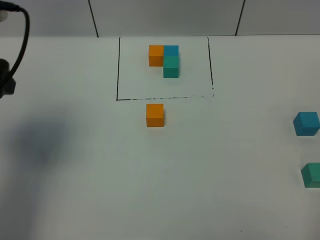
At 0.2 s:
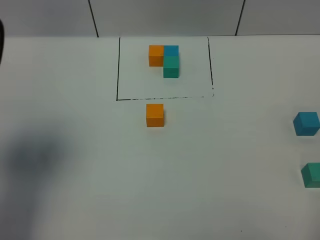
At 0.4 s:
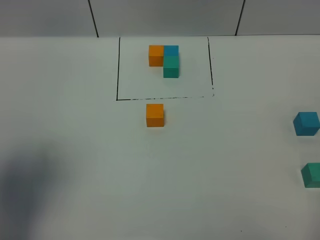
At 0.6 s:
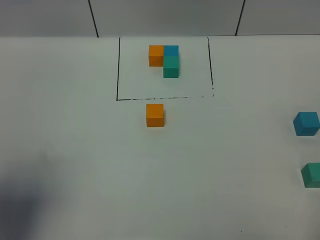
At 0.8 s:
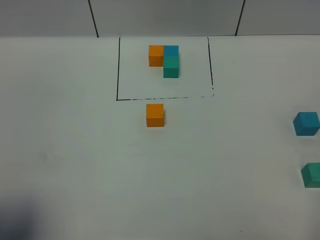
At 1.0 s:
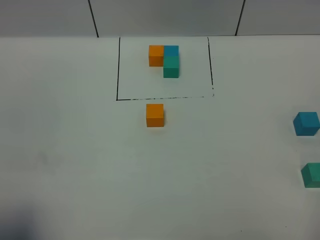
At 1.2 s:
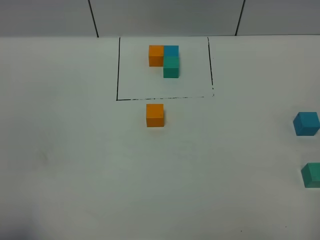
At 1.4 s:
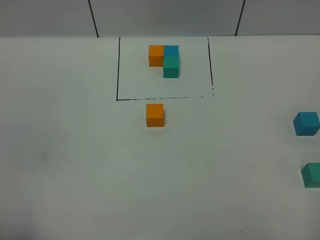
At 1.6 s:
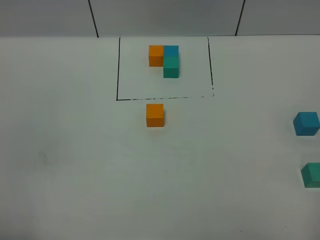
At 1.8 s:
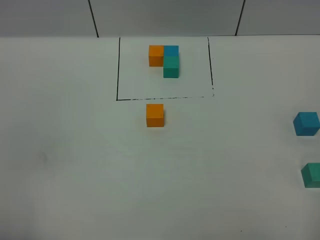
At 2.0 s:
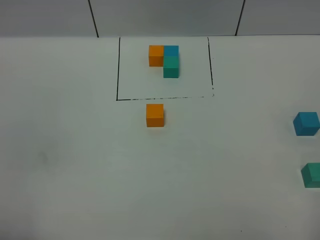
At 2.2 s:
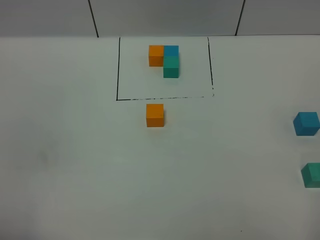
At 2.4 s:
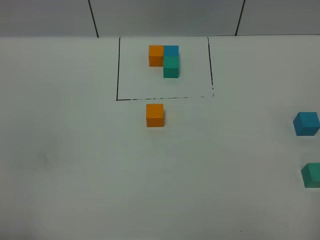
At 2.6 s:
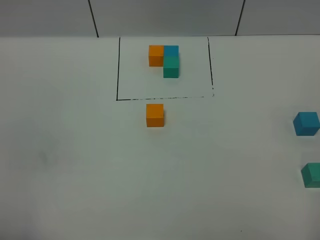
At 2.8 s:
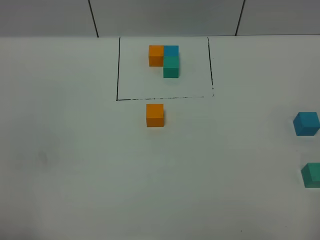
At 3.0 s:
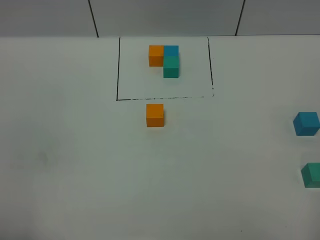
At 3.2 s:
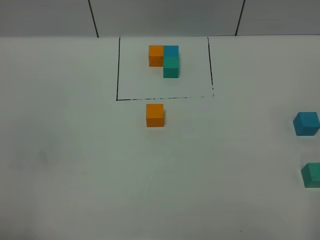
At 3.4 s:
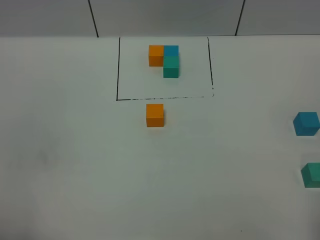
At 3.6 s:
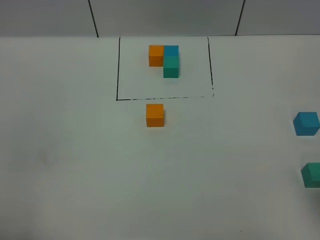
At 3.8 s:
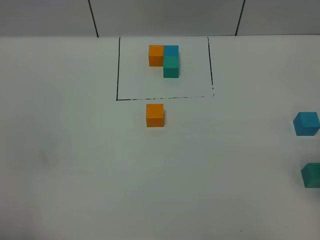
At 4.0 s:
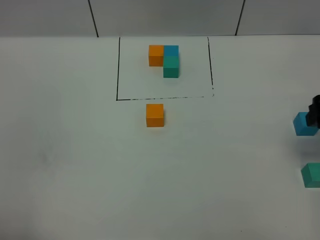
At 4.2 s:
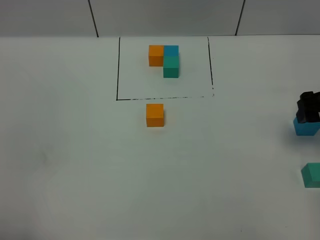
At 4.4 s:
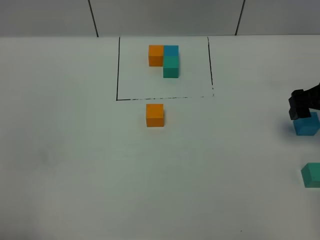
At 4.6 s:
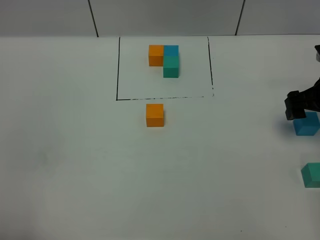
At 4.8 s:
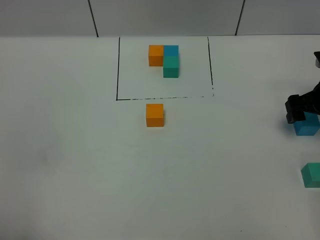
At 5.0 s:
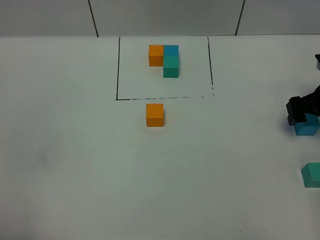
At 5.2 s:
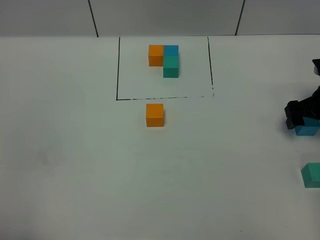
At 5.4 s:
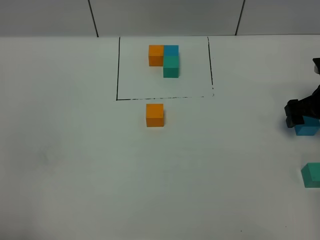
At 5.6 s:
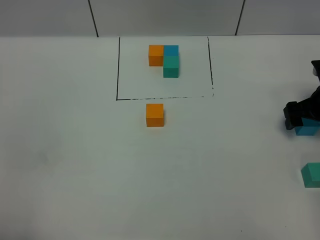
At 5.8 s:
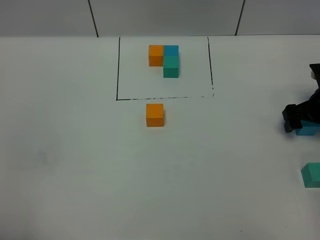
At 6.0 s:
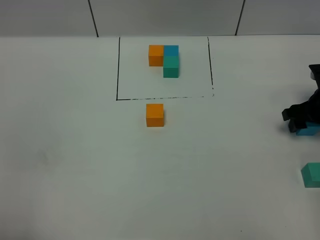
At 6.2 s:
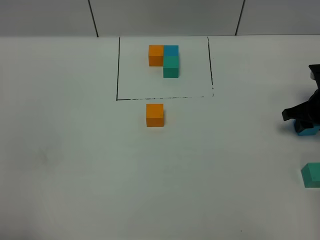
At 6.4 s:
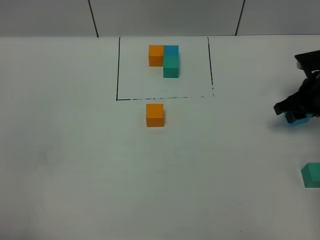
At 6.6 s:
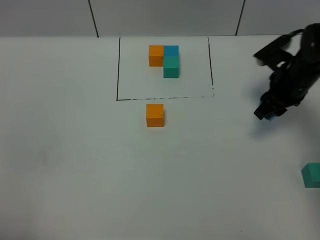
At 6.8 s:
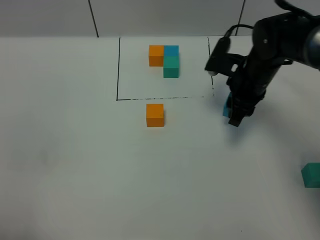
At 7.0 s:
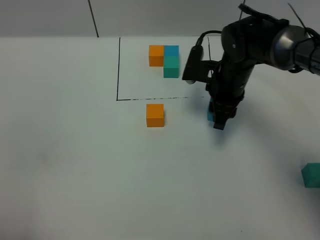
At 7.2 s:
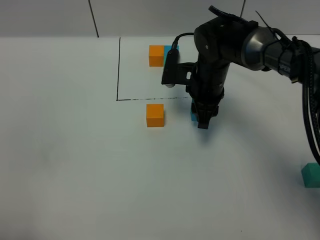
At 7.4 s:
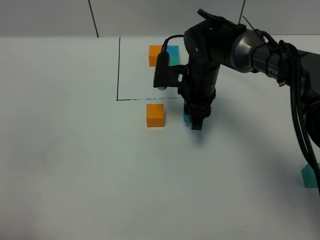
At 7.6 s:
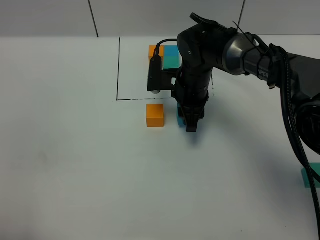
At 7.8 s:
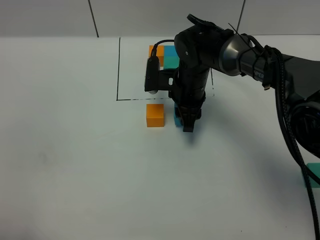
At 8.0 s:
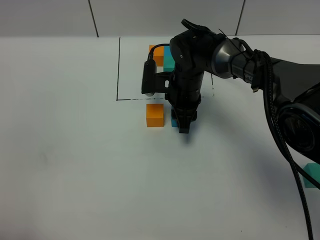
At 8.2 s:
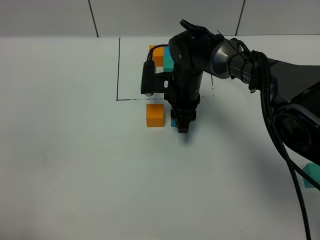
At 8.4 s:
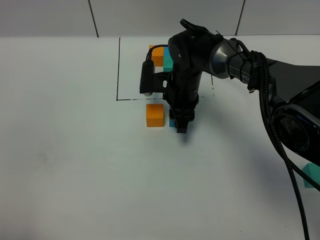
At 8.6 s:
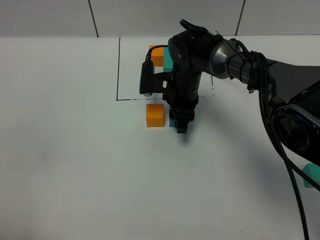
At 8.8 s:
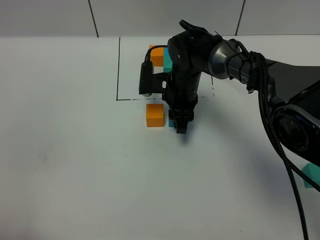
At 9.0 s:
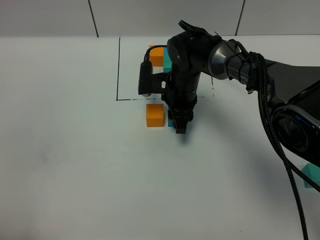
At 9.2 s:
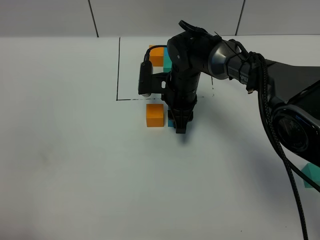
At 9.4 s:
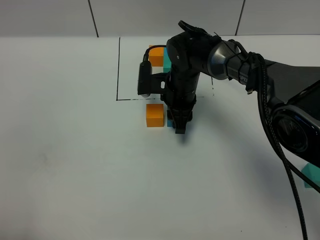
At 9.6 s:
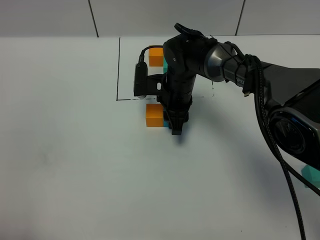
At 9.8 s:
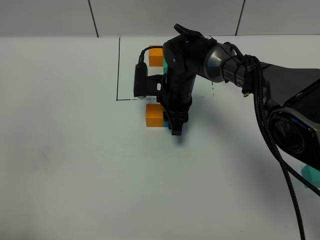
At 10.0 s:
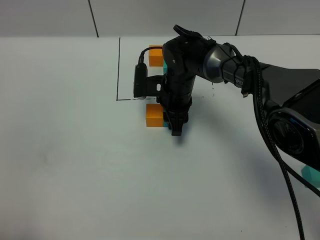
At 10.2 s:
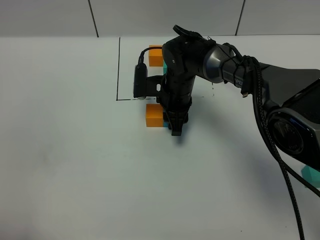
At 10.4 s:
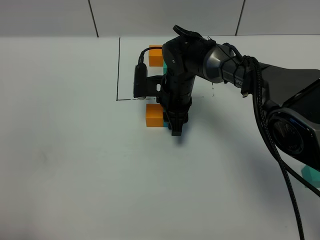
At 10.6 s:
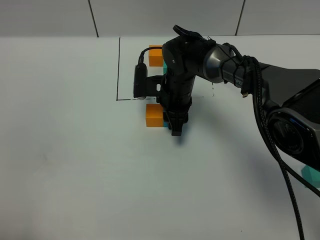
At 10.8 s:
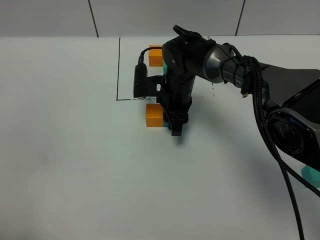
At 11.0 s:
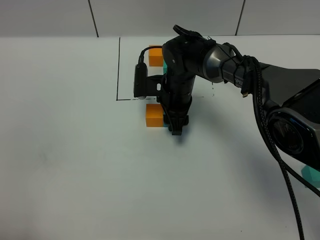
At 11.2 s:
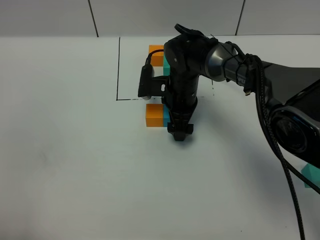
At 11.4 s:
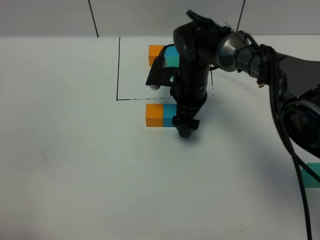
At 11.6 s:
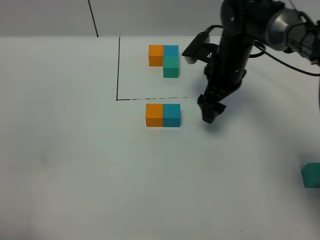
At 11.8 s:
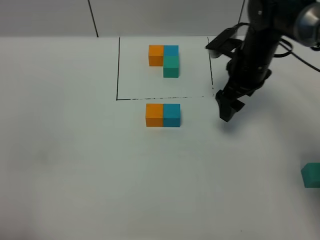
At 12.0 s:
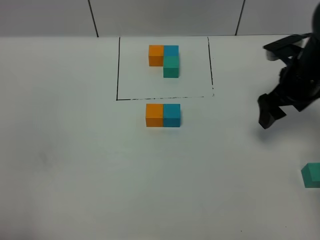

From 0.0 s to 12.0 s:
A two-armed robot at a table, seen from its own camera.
Task of the whole recording: According to the building block template in front, assemble the scattered blocks together.
Step, from 0.0 s to 11.2 s: Put the blue build block on the behind of the orange build block.
From 0.0 s to 1.6 s: The left gripper goes approximately 25 cm backward.
From 1.6 s to 3.0 s: Neither gripper changes place.
From 3.0 s to 4.4 s: The right gripper travels forward by about 35 cm.
From 4.4 s to 6.0 s: The right gripper is displaced downward by about 5 cm, and closes its fingers.
From 6.0 s to 7.6 s: The right gripper is displaced to the left by roughly 30 cm.
From 7.6 s to 9.0 s: There are only small adjustments of the grippers.
From 9.0 s to 10.4 s: Both grippers stay put.
From 10.4 s to 12.0 s: The right gripper heads to the right, covering roughly 25 cm, and opens.

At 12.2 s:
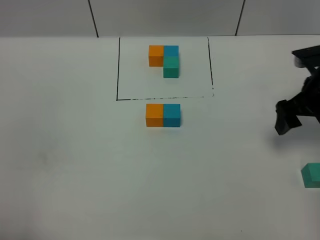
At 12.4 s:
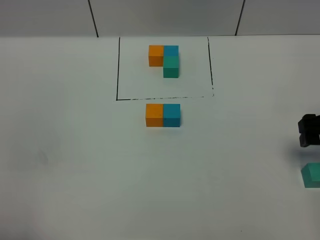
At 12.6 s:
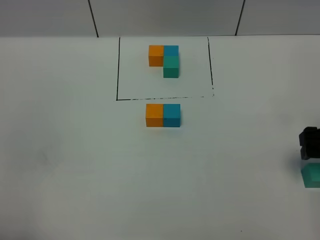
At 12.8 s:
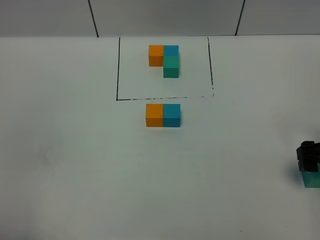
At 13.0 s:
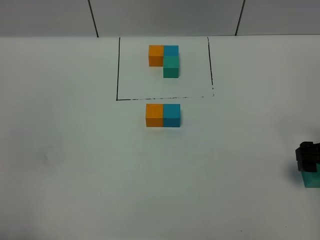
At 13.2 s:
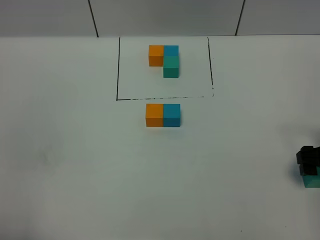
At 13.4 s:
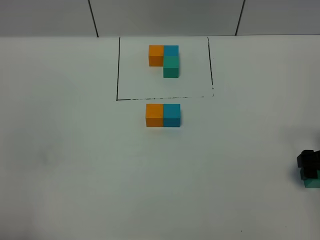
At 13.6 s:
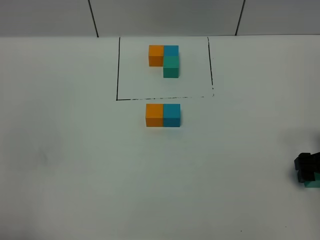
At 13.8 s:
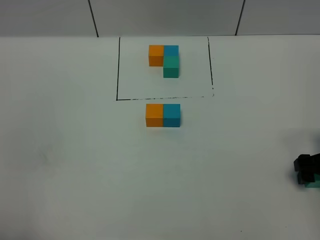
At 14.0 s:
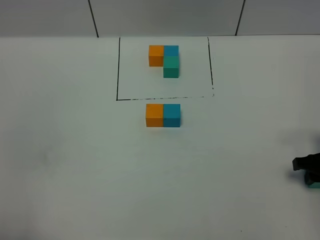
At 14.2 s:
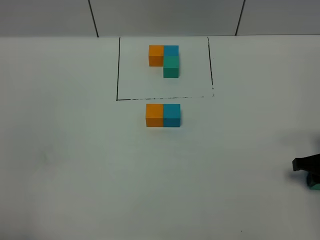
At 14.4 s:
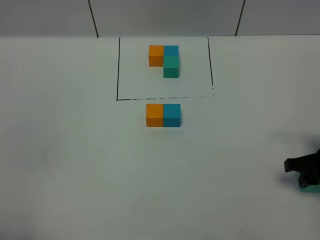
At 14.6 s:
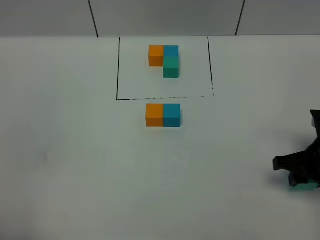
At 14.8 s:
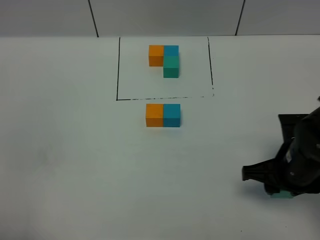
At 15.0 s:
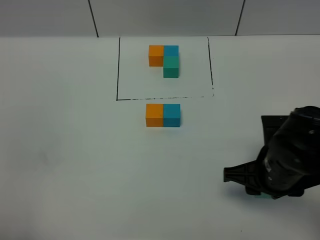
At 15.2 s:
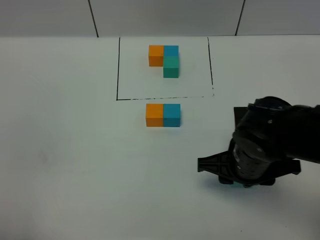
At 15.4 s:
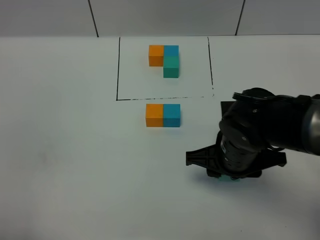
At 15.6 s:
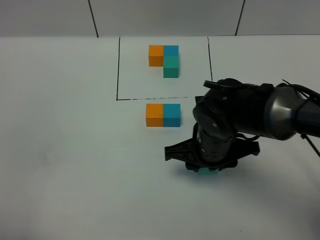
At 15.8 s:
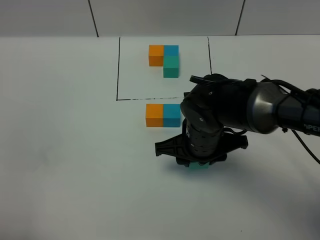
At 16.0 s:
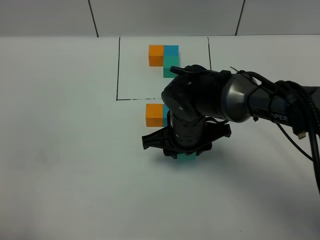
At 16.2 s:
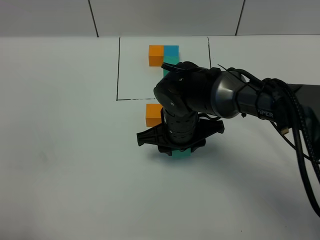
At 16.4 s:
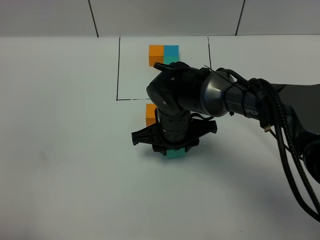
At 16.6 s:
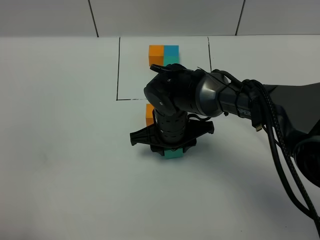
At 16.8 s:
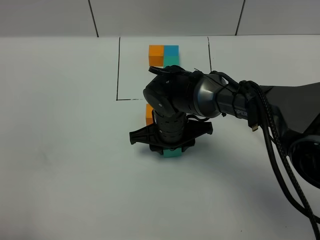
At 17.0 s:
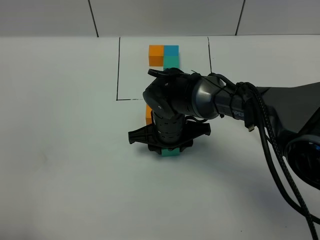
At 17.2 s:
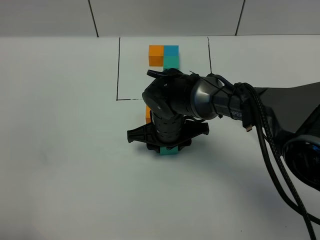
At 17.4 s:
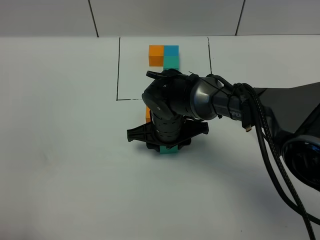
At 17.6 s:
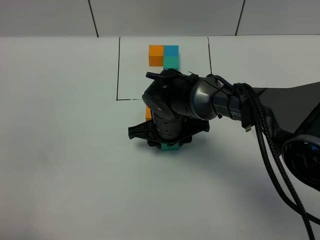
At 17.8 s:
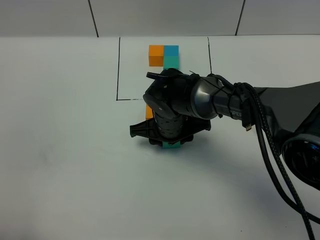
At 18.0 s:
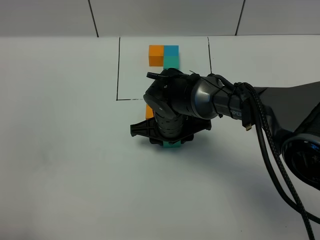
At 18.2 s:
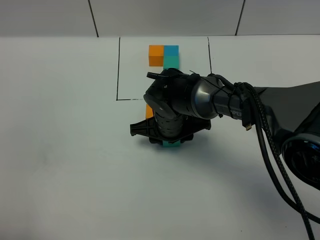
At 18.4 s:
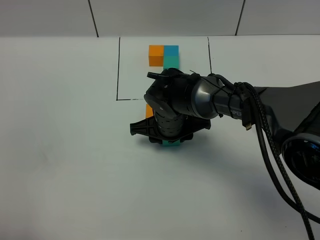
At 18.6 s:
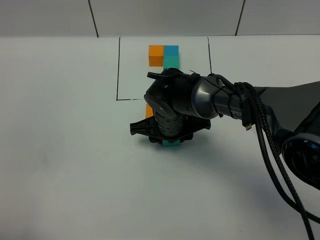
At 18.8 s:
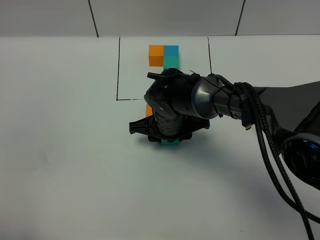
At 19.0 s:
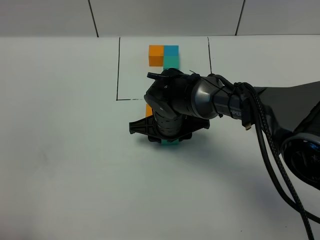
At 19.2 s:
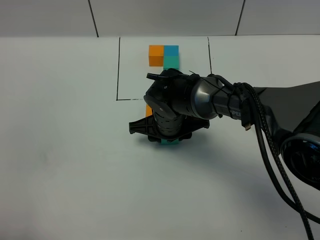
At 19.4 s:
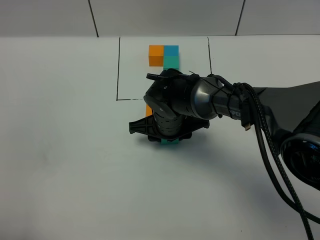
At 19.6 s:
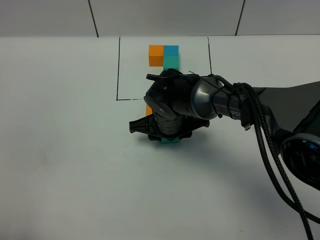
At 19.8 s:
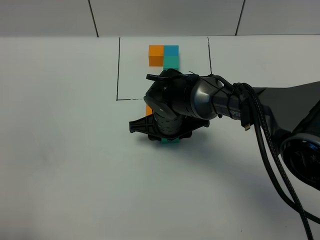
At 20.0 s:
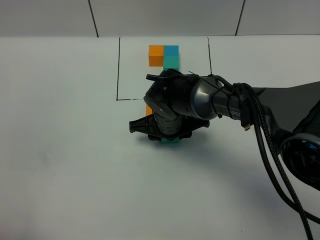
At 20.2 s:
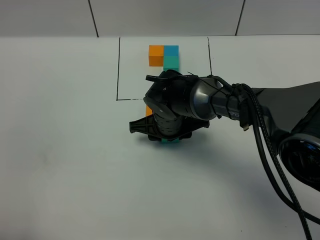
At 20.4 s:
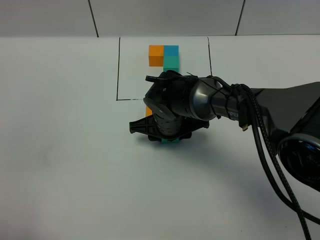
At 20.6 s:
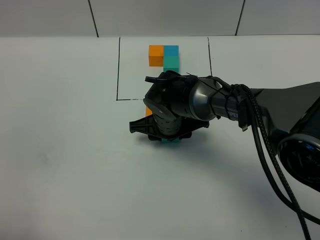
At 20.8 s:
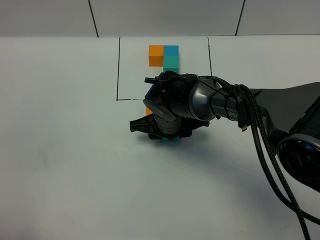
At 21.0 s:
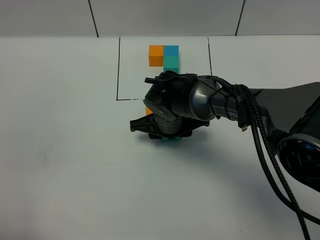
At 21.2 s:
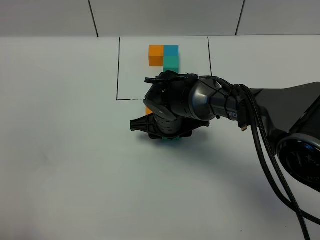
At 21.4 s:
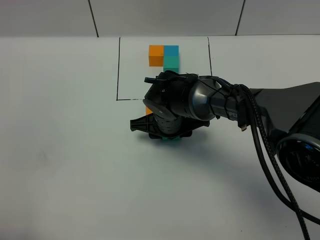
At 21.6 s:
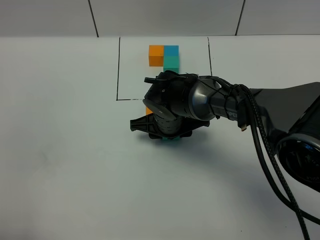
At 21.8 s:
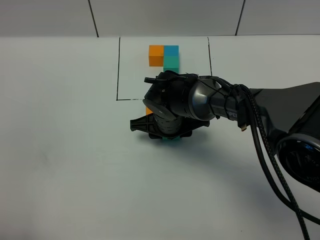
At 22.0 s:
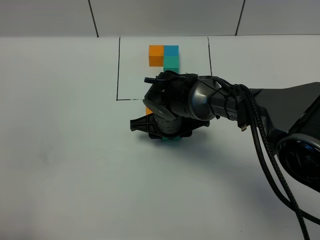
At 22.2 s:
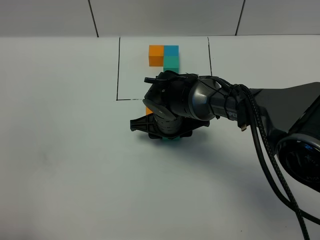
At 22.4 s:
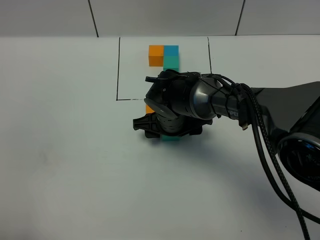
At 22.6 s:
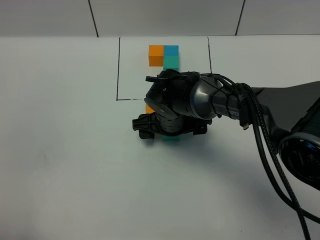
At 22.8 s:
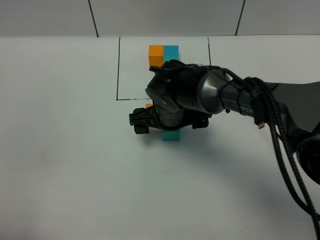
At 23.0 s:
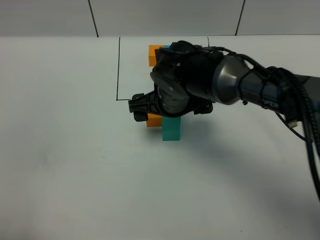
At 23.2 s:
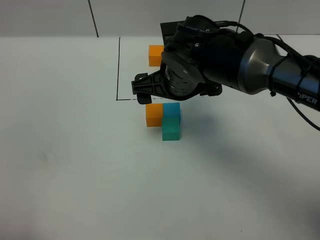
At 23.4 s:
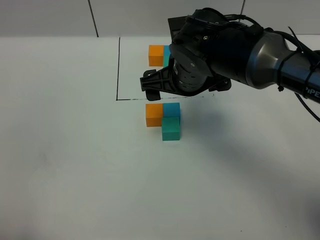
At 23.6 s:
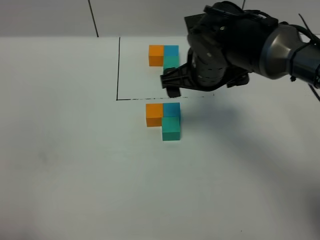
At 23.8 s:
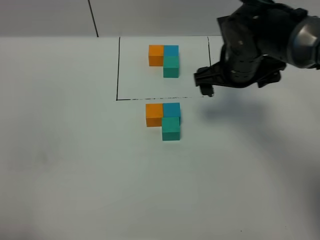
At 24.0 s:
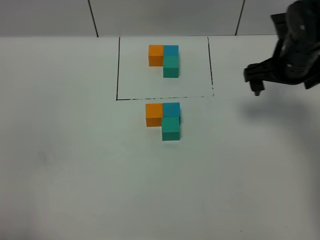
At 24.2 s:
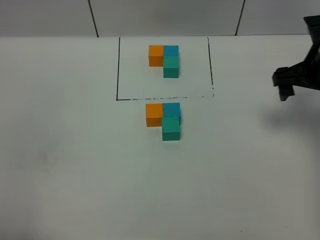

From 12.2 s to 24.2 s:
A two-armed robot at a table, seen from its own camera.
Task of the whole recording: According to the building block template in front, assemble the scattered blocks together.
Step, from 12.2 s to 22.6 s: Put the green build block on the behind of the blue build block.
From 12.2 s to 13.8 s: The right gripper is displaced downward and backward by roughly 10 cm.
From 13.8 s to 15.2 s: The right gripper moves to the left, about 20 cm, and closes its fingers.
From 15.2 s to 16.6 s: The right gripper shifts roughly 15 cm to the left and forward.
From 16.6 s to 18.2 s: The grippers move only a little.
From 18.2 s to 21.2 s: Both grippers stay put.
From 21.2 s to 22.6 s: The right gripper opens.
From 22.6 s to 24.2 s: The right gripper shifts approximately 30 cm to the right and upward.
